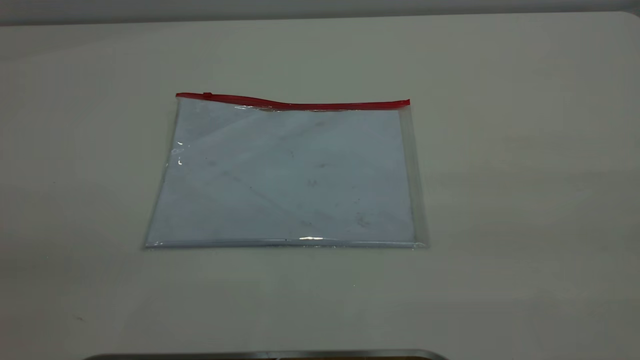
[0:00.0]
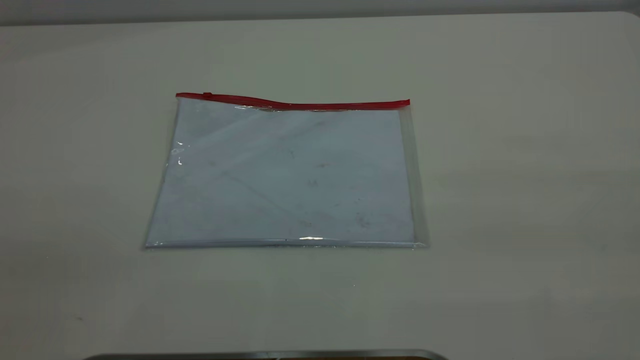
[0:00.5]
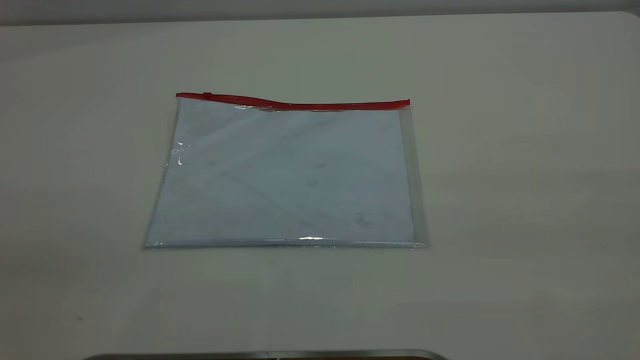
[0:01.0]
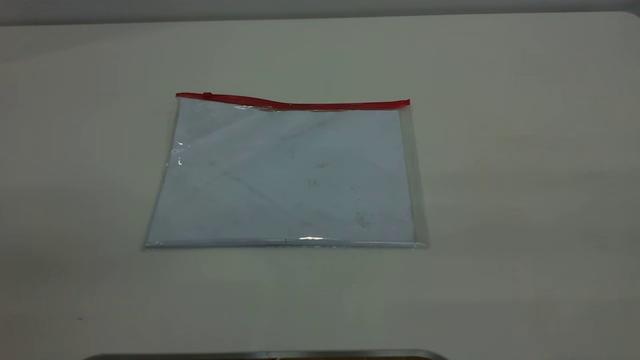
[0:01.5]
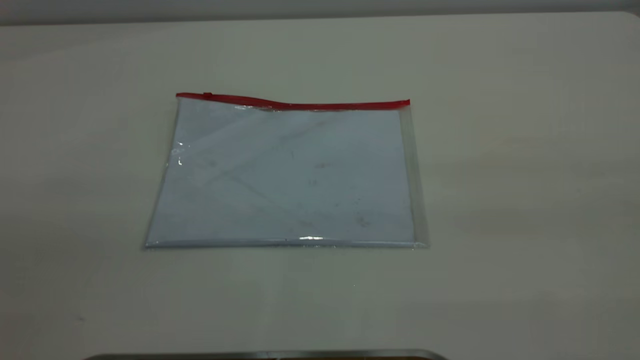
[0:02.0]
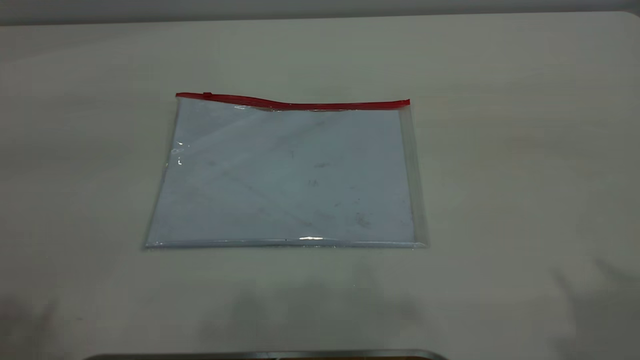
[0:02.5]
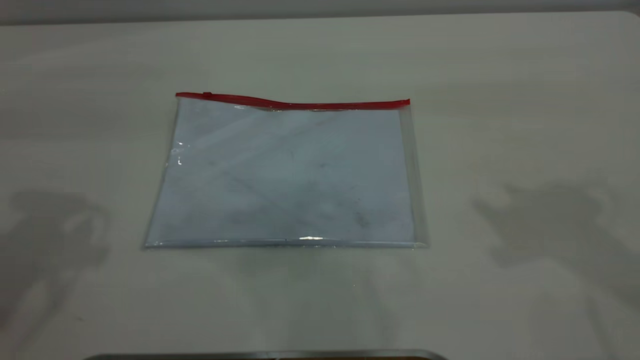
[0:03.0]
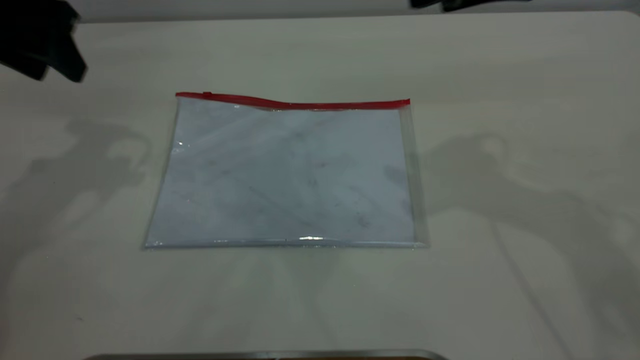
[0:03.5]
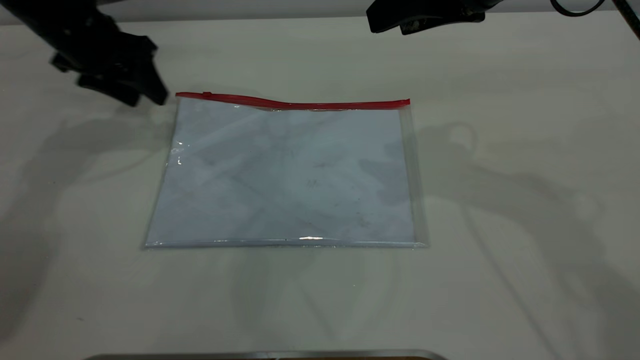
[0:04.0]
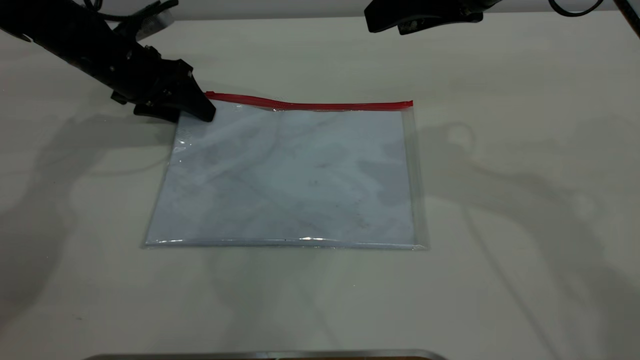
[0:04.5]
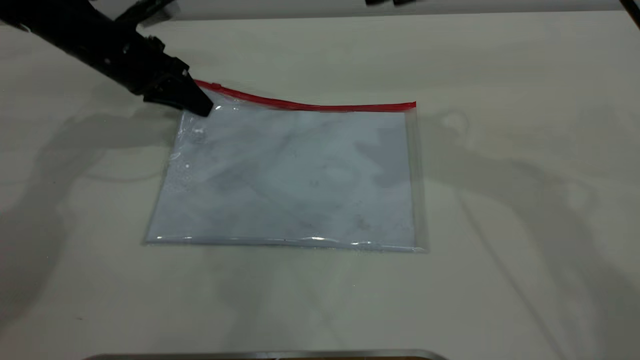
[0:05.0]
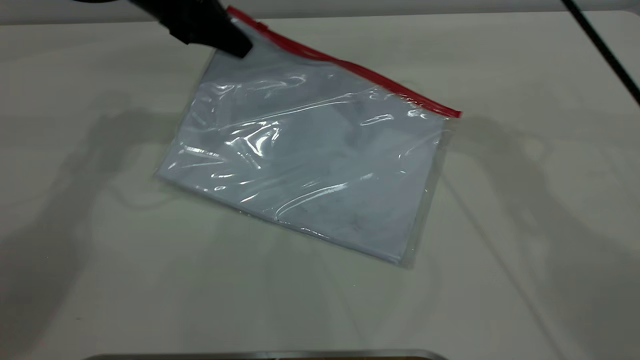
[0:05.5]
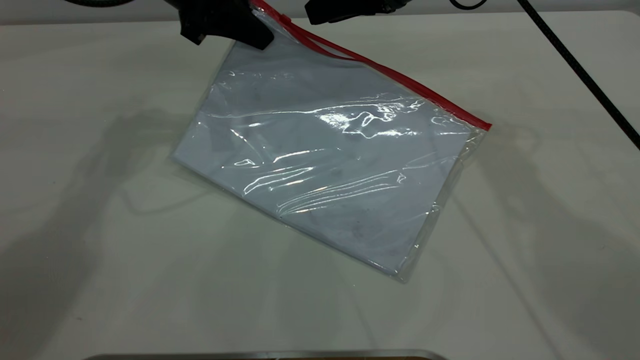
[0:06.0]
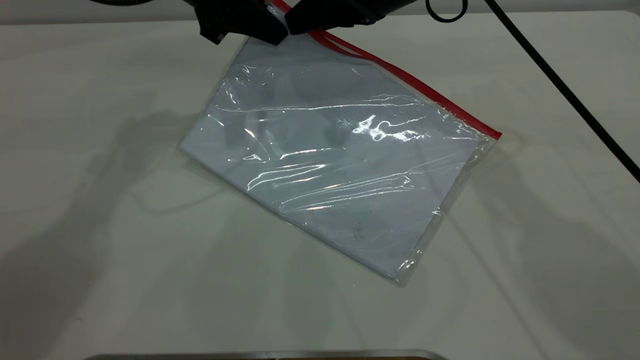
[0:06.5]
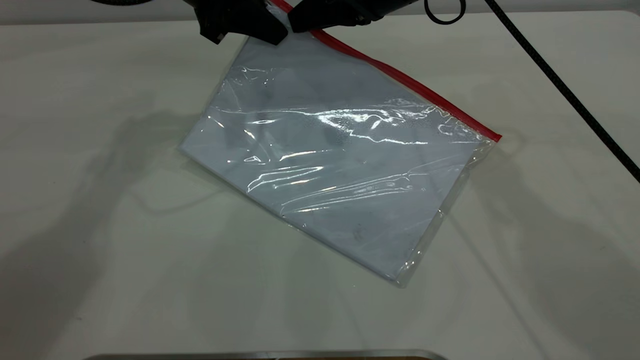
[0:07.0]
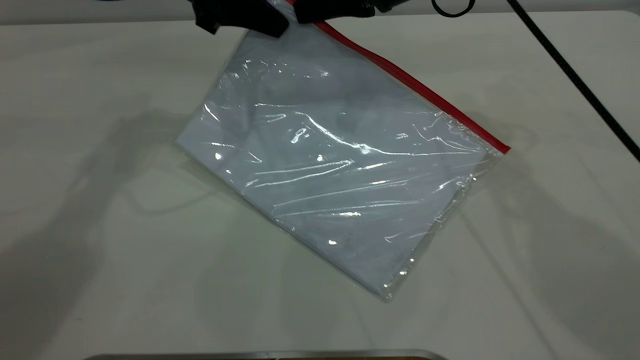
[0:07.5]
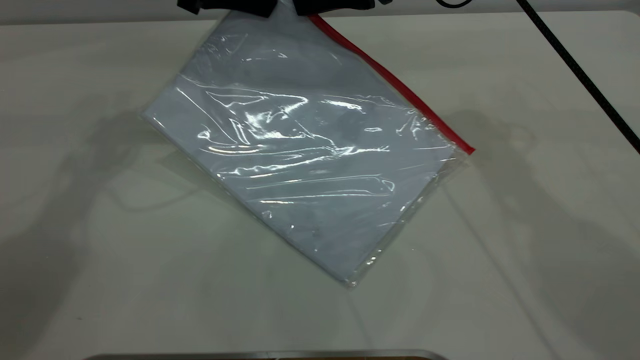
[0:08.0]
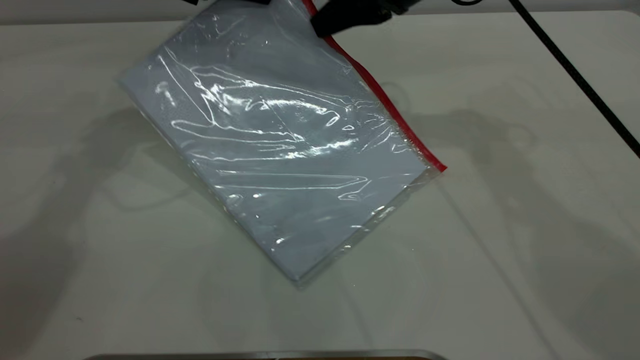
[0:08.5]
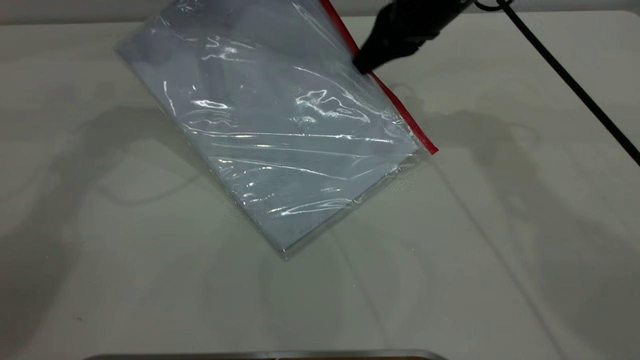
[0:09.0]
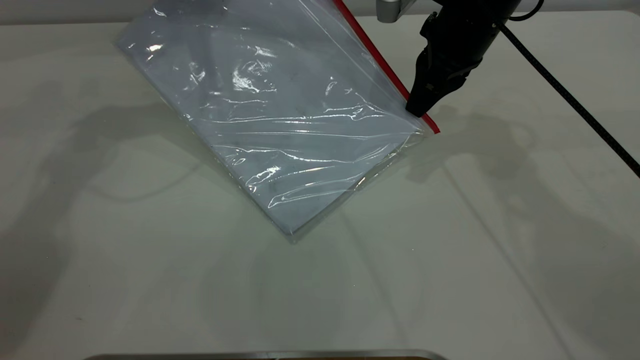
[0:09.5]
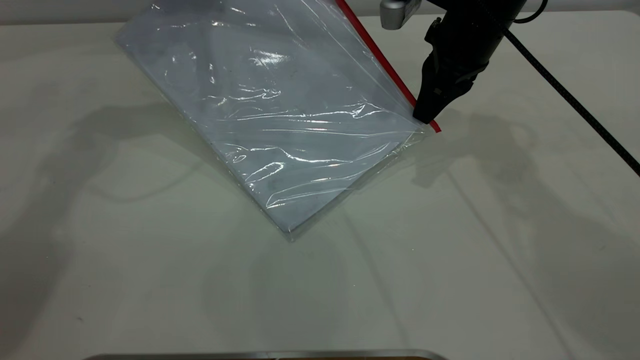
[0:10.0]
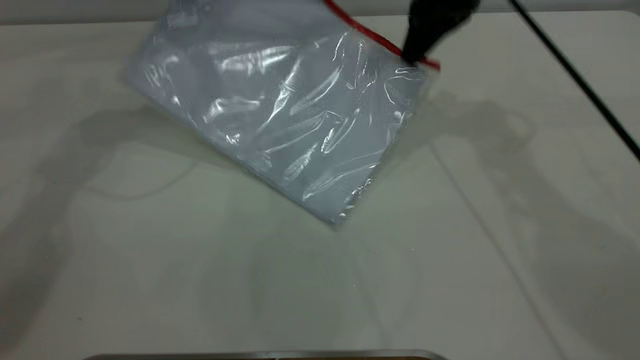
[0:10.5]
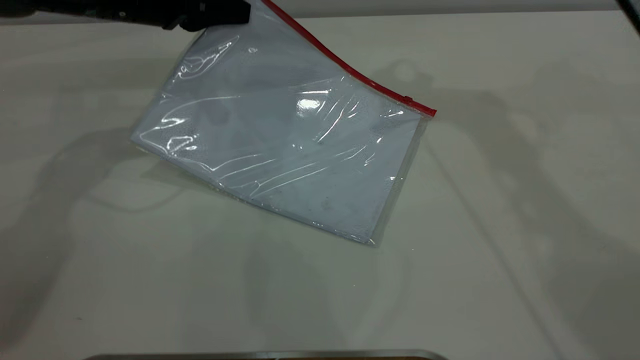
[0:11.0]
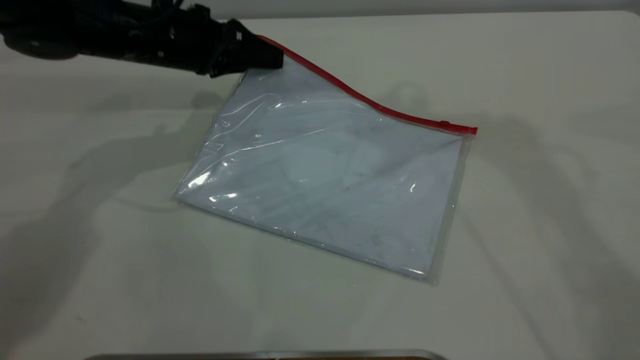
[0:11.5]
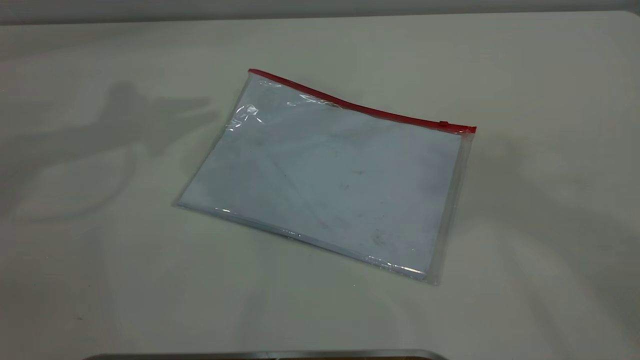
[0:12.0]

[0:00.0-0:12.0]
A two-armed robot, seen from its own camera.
Step, 0:00.0 to 0:05.0: Pick up the transparent plastic bag with the left gripper.
Step, 0:05.5 to 0:10.5: Pulling up the zipper on the transparent plastic bag with the right gripper to close it.
Step, 0:11.0 to 0:11.5: Place the transparent plastic bag.
0:02.0 to 0:04.0: The two grippers go about 40 cm forward and downward.
0:04.0 to 0:06.0: The right gripper goes about 10 cm forward, while the left gripper shifts about 10 cm to the right and upward, and closes.
0:06.0 to 0:08.0: The right gripper closes.
0:08.0 to 0:10.0: The right gripper shifts some 5 cm to the right.
0:10.0 to 0:12.0: The left gripper shifts about 15 cm to the left, upward and backward, and opens its fingers, while the right gripper heads upward, covering roughly 50 cm, and opens its fingers.
